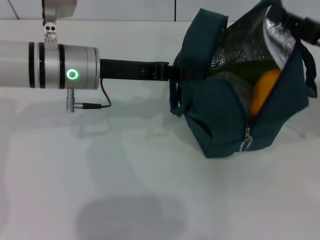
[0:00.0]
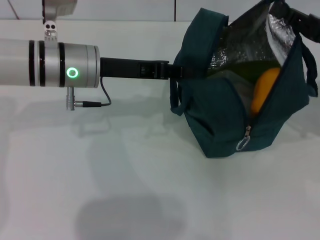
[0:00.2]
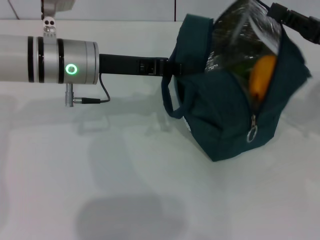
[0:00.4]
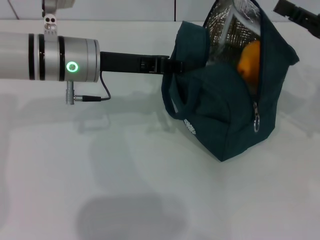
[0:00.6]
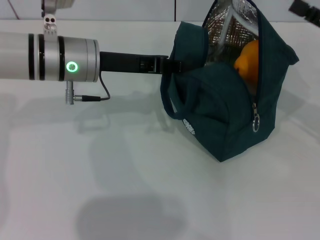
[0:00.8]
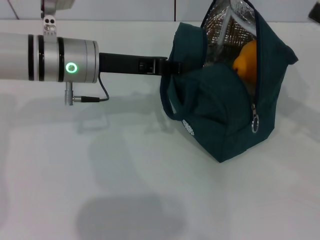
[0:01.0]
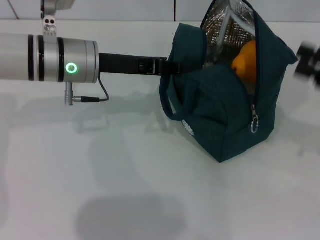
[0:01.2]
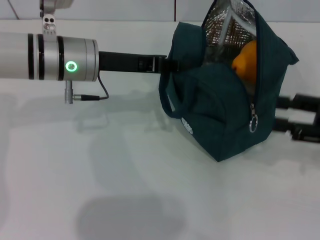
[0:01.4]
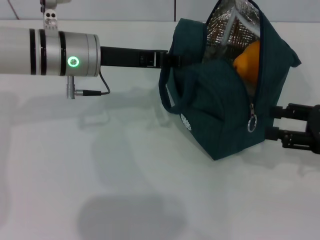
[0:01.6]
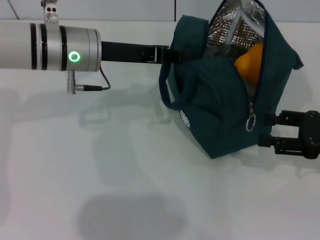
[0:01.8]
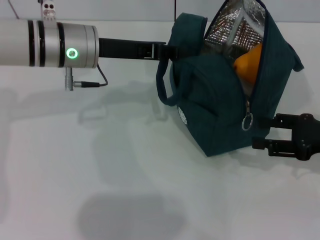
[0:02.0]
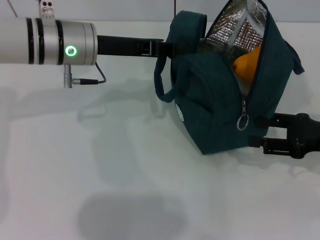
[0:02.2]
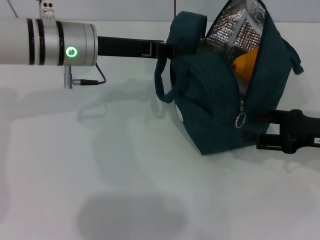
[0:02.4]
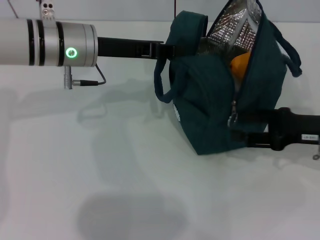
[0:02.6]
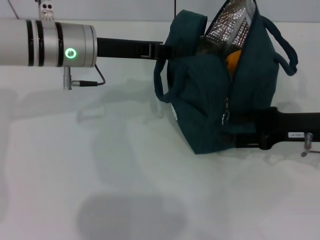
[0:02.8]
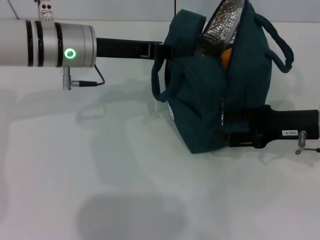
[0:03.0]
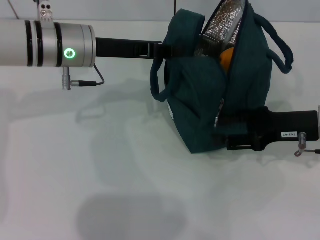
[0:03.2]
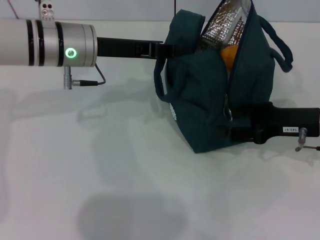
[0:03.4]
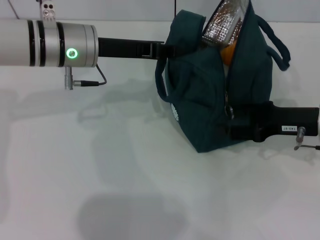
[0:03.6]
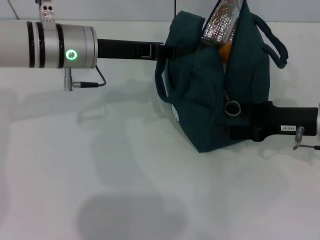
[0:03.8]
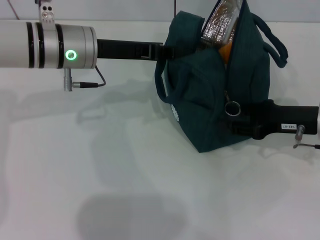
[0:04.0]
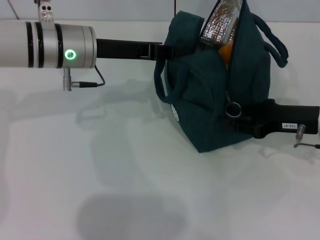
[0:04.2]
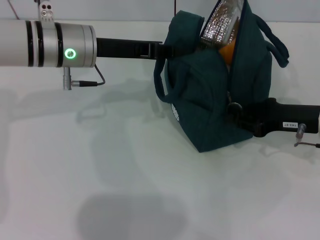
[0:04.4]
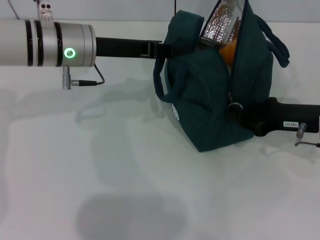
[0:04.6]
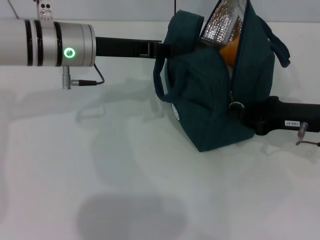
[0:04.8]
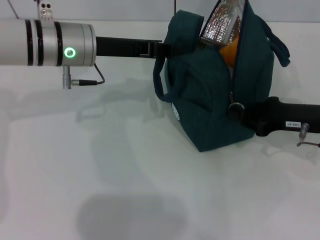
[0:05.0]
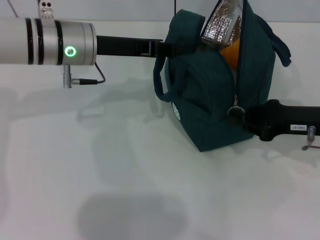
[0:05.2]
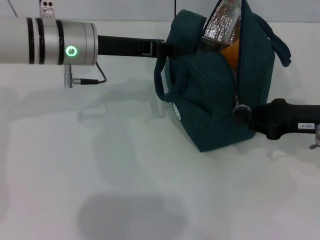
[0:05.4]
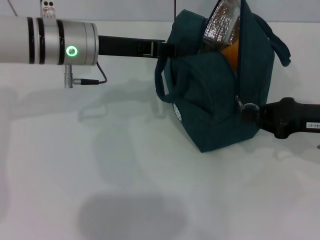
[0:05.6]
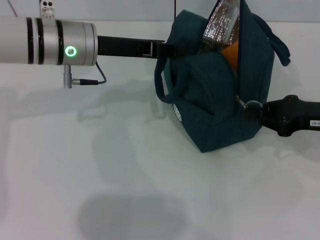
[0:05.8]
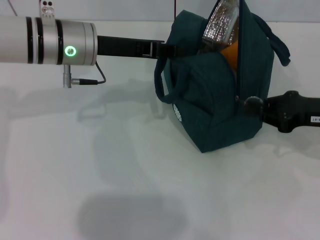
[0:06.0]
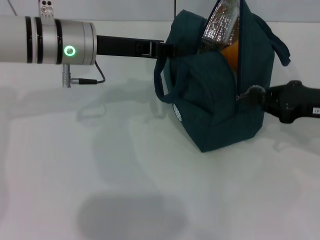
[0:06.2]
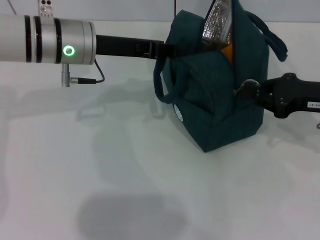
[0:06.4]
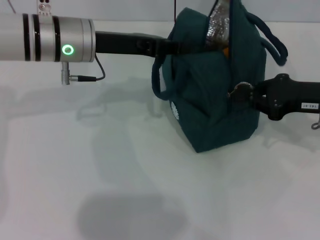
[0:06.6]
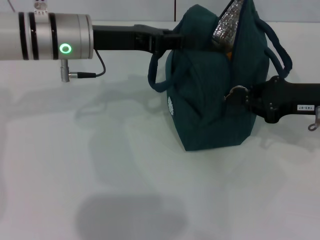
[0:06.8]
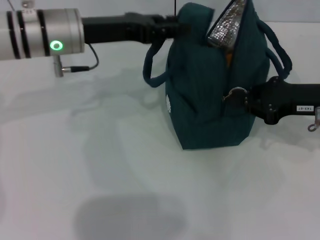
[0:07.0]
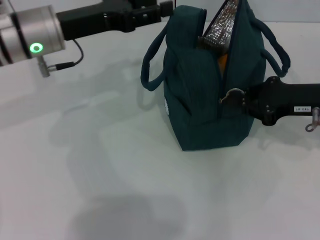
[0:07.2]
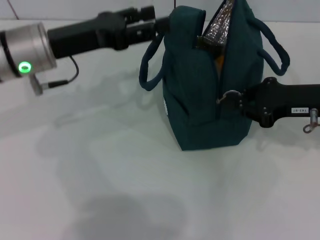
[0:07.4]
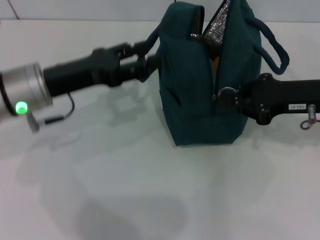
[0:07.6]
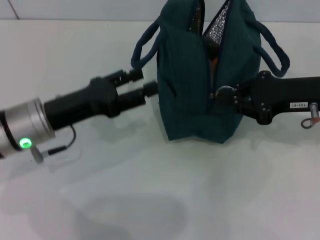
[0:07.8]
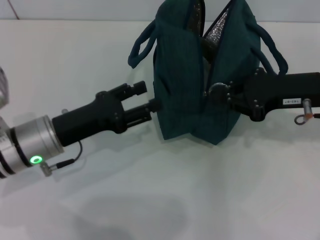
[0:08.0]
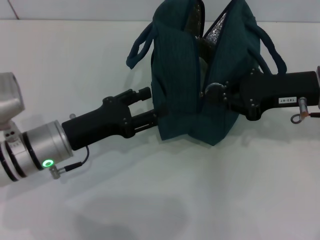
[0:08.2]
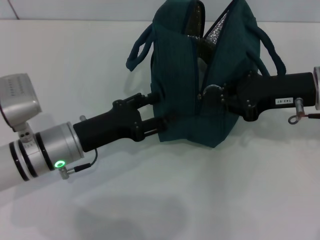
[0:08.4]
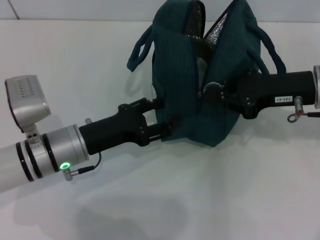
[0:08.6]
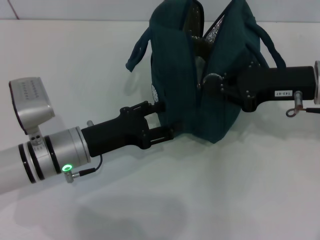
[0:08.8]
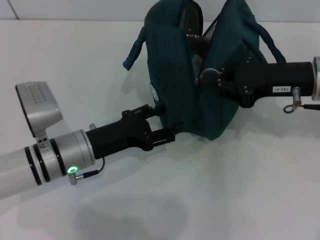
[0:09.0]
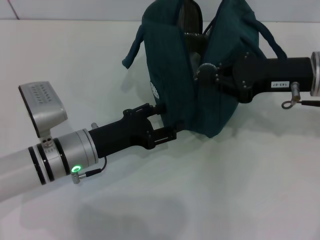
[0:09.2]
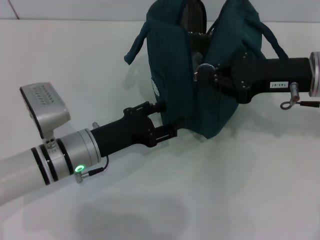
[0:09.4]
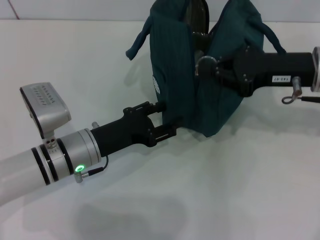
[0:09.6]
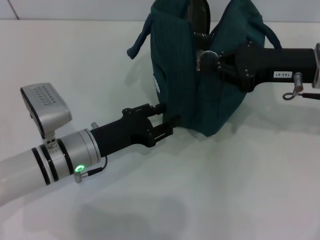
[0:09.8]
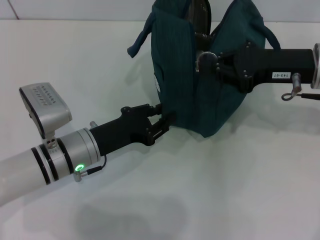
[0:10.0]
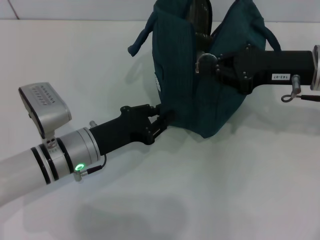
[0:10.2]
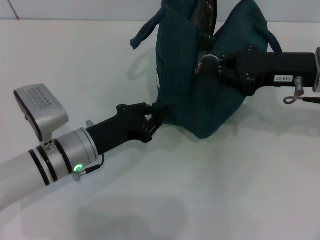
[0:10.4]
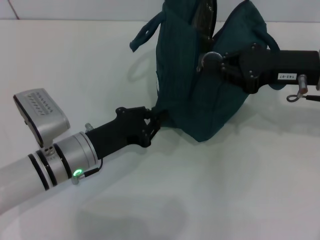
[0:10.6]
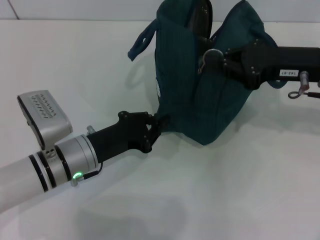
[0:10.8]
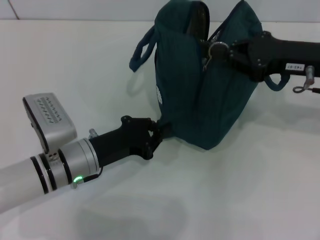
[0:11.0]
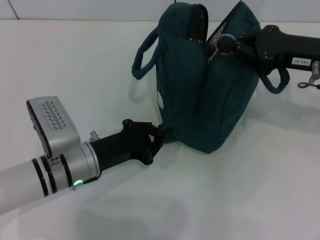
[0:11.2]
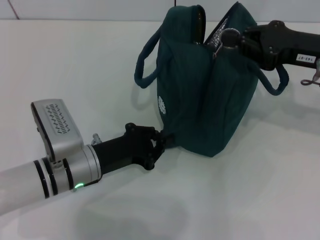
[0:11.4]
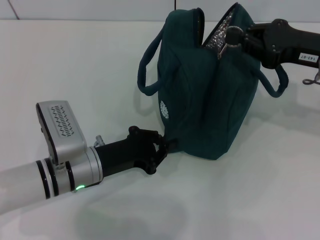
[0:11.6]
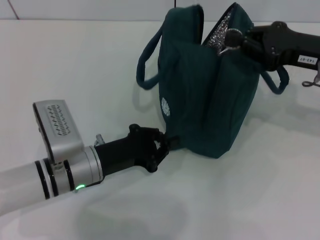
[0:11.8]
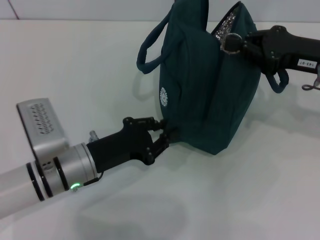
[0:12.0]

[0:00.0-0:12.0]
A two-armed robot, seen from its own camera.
Step, 0:00.6 to 0:07.2: Hold the lunch bag with your left hand.
0:00.0 to 0:01.6: The right gripper shifts approximately 5 cm backward, and opens.
0:01.6 to 0:03.0: The right gripper heads to the left, covering roughly 5 cm.
0:03.0 to 0:04.4: The right gripper closes.
0:04.4 to 0:06.0: The right gripper closes up.
0:06.0 to 0:07.6: The left gripper travels backward and to the left by approximately 10 cm, and opens its fingers.
0:07.6 to 0:09.0: The left gripper moves downward, approximately 10 cm.
0:09.0 to 0:10.4: The left gripper closes up.

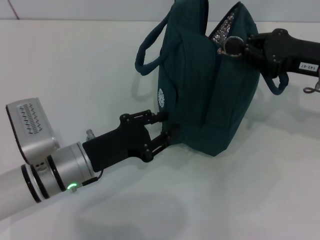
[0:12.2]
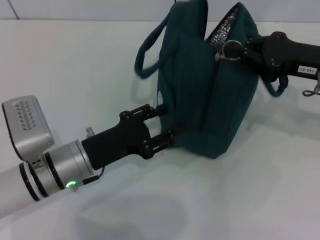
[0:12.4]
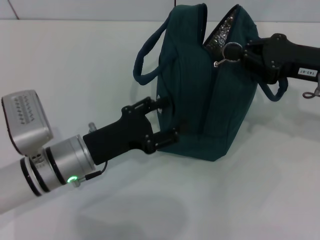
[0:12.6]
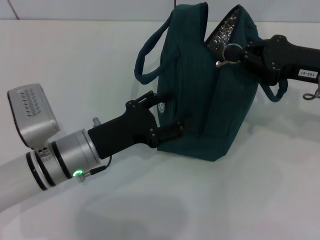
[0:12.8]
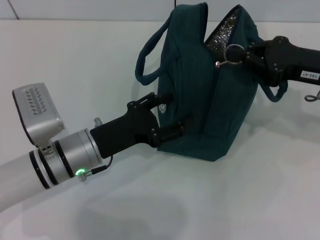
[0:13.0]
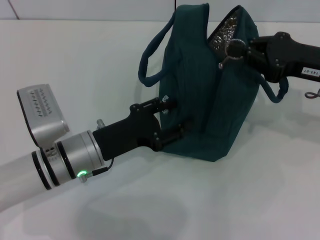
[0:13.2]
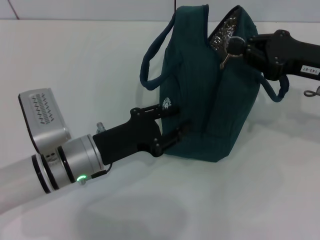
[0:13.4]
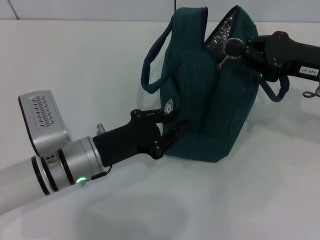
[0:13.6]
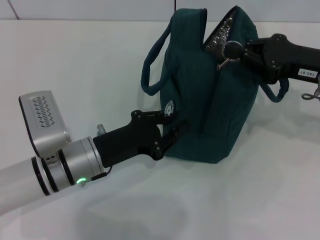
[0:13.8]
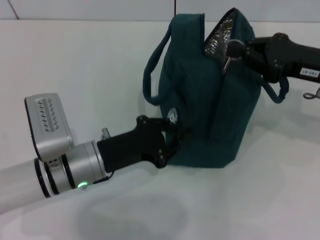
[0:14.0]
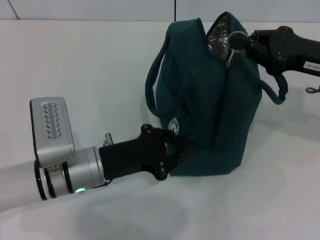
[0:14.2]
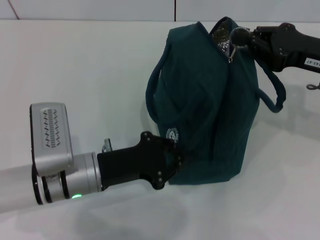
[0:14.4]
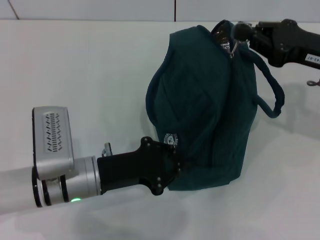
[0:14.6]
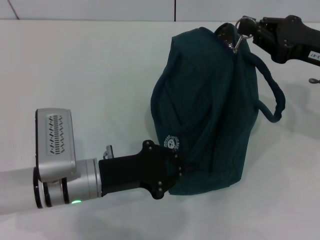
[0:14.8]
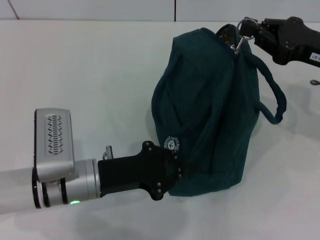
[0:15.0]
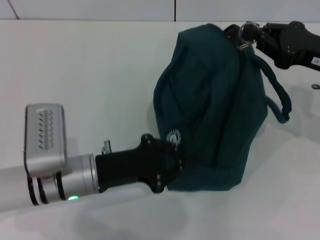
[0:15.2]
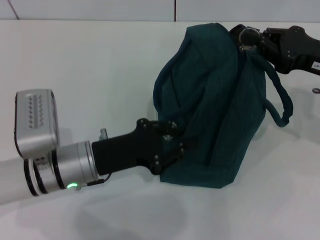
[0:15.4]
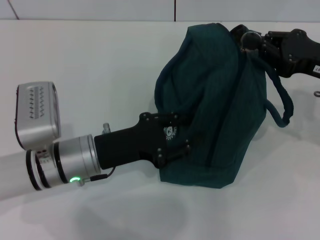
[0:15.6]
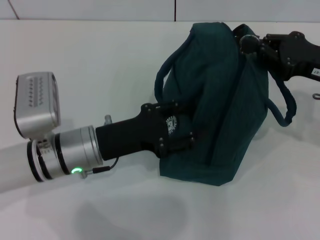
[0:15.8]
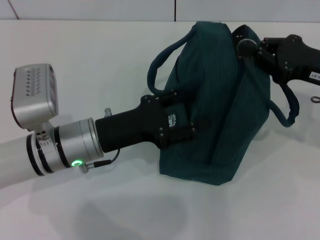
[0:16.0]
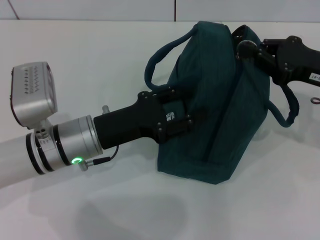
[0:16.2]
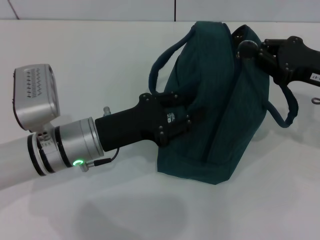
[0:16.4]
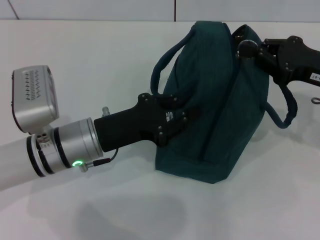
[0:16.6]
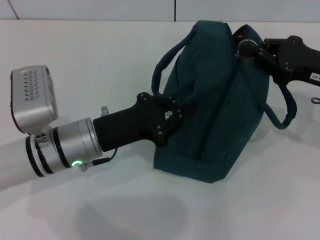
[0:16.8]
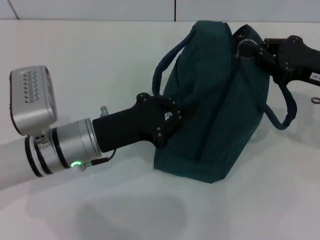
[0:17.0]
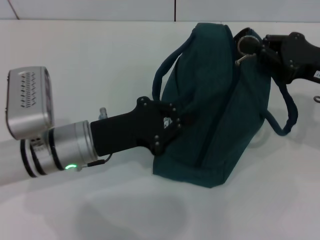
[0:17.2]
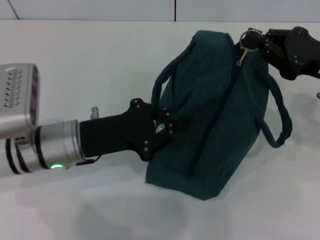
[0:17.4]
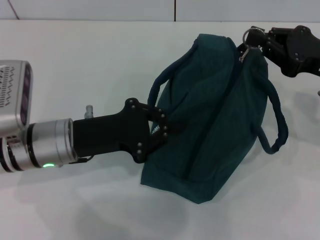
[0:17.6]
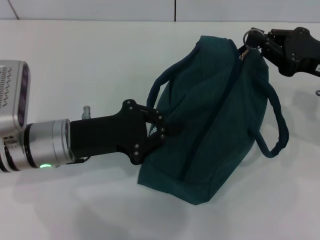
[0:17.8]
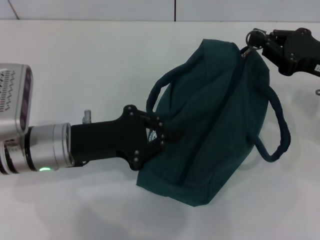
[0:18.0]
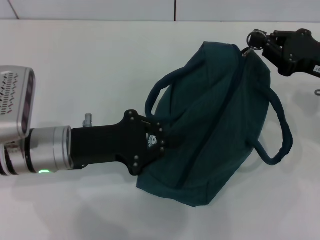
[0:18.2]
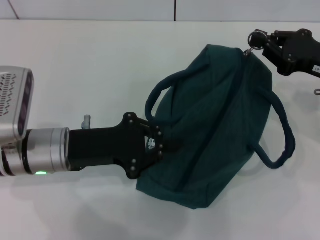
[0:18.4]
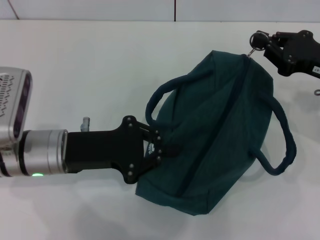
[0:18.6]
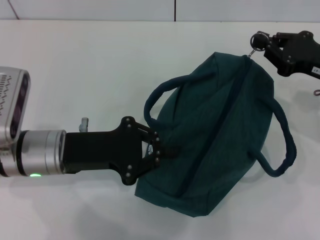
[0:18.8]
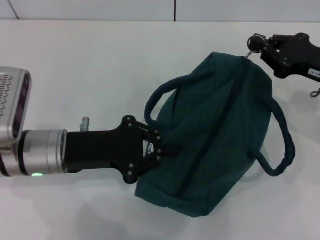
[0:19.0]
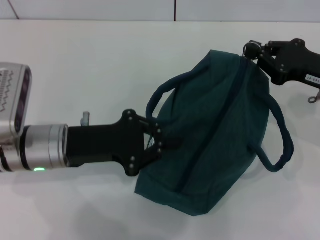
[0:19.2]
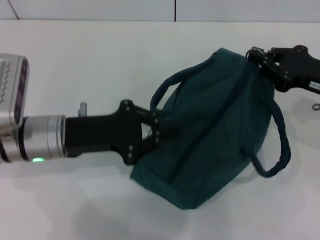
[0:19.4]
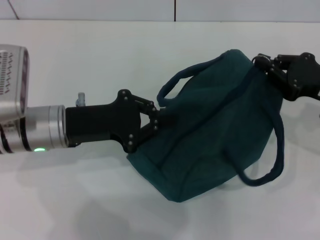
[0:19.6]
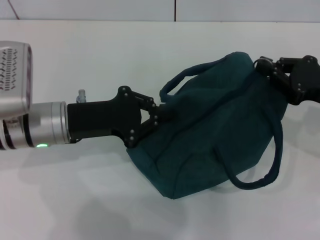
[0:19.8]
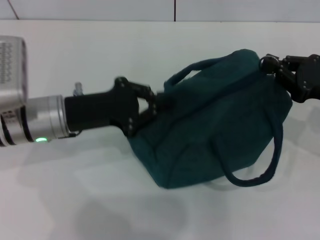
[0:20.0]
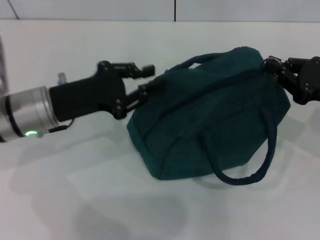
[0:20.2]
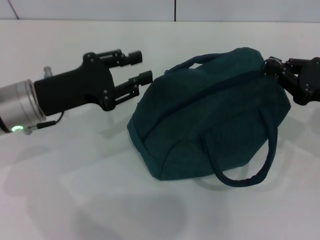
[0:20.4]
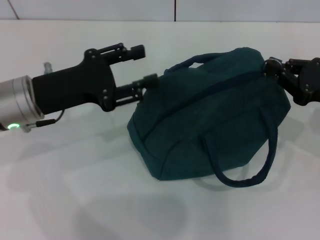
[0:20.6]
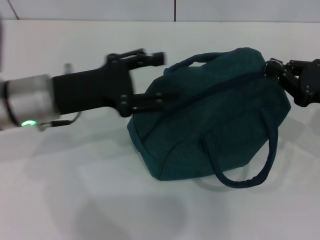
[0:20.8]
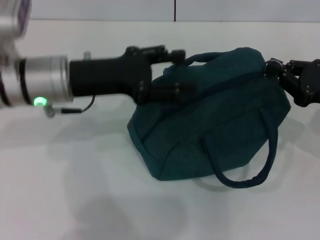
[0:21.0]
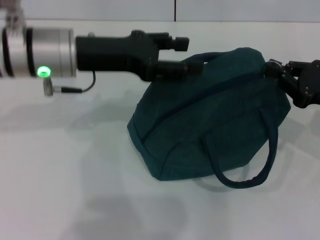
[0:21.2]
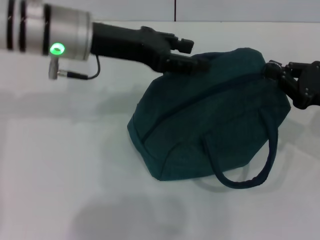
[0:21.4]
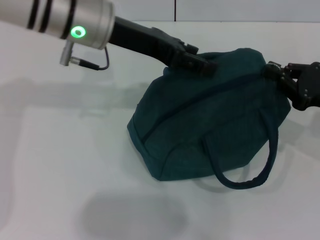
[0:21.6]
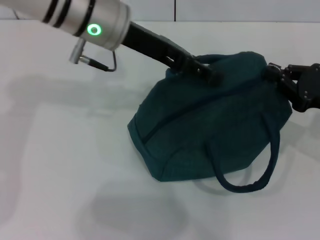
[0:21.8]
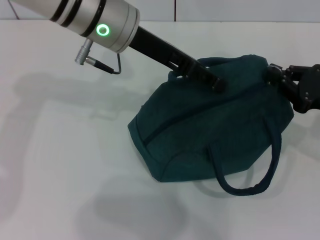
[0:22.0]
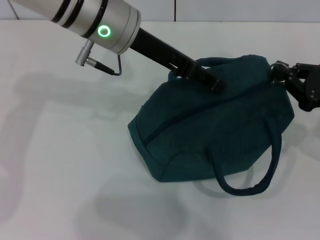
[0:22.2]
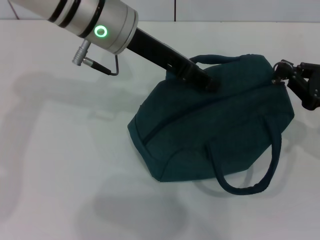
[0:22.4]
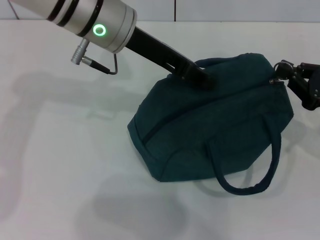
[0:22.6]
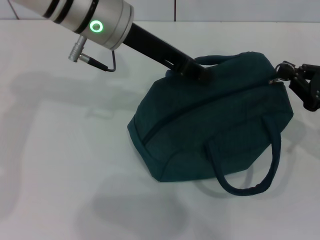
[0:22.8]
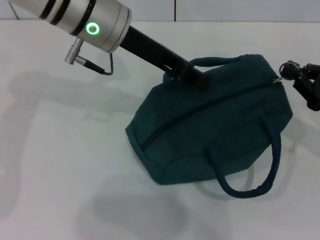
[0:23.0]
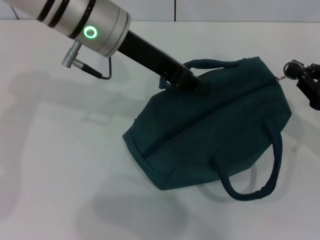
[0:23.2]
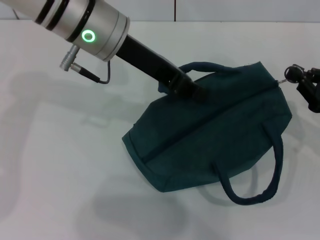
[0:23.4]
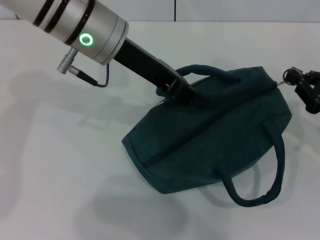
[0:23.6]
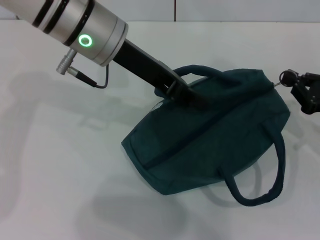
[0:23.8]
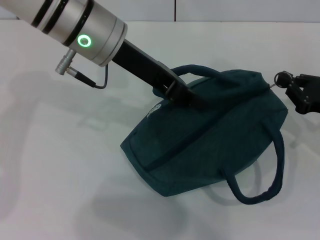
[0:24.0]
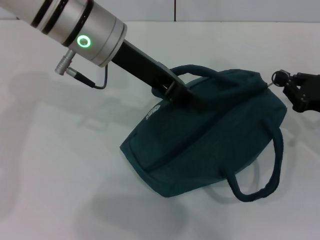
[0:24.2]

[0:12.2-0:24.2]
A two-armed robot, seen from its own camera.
0:12.2 to 0:13.8: The left gripper opens and closes again.
0:15.2 to 0:16.6: The left gripper opens, then closes once more.
0:19.8 to 0:21.2: The left gripper goes some 10 cm upward, and opens its fingers.
0:21.2 to 0:22.6: The left gripper travels to the right by approximately 5 cm, and closes its fingers.
0:22.6 to 0:24.2: The left gripper closes.
